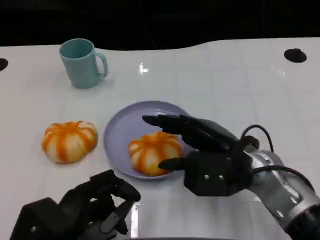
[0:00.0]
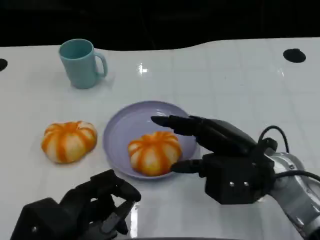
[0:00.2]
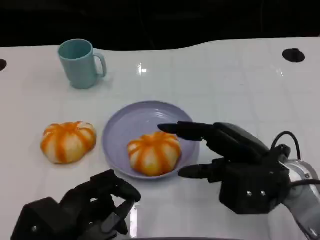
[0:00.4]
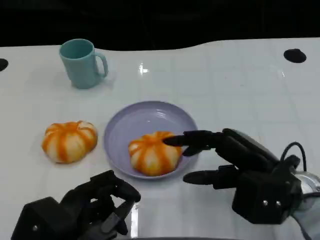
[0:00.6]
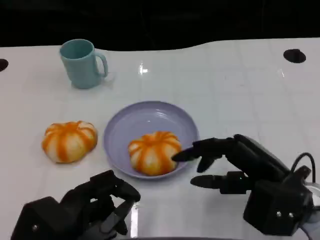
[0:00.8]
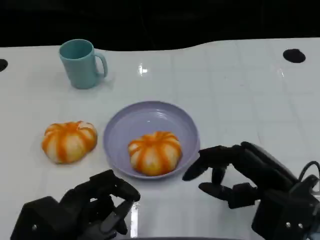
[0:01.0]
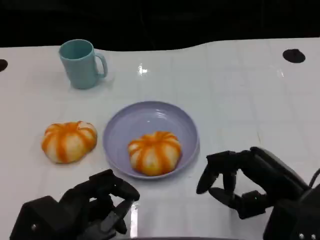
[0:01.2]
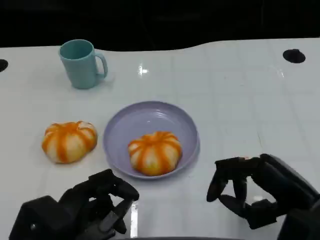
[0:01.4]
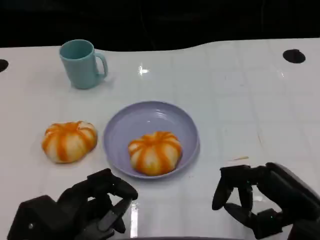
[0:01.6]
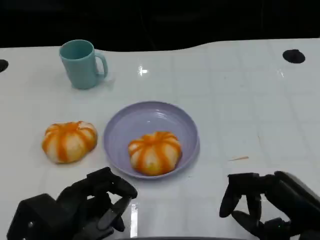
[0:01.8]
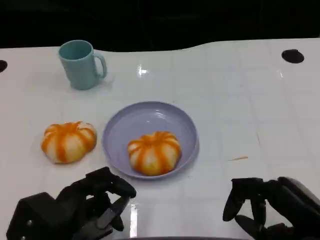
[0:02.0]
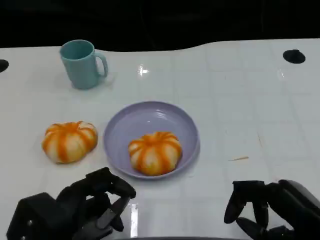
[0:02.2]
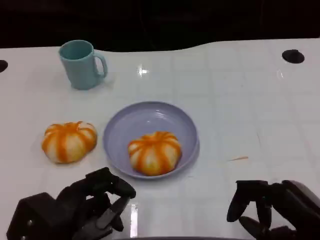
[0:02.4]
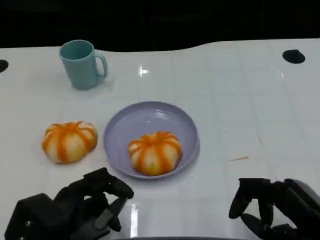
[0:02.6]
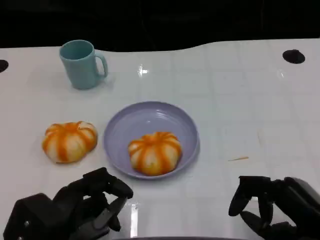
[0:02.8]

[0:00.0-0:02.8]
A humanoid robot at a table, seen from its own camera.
Task of the whole recording: Grasp the bread from the table and place it into the plate.
0:00.0 to 0:01.4: The right hand goes roughly 10 cm to the right and backward.
0:01.4 to 0:02.8: There are only small adjustments of the hands.

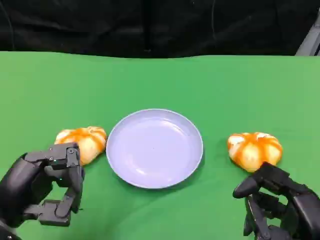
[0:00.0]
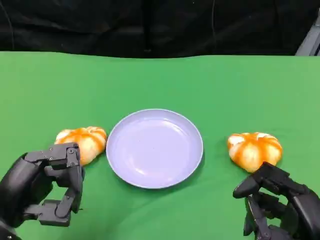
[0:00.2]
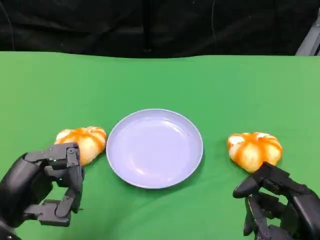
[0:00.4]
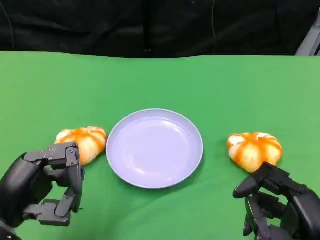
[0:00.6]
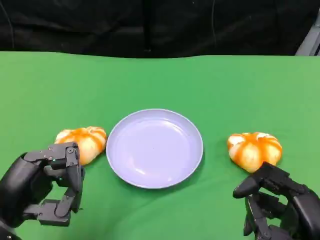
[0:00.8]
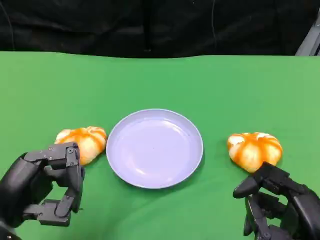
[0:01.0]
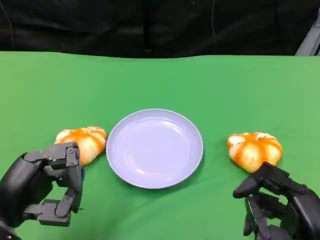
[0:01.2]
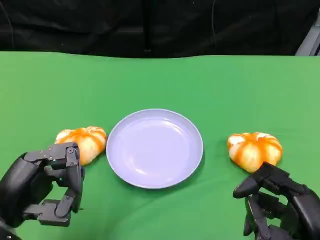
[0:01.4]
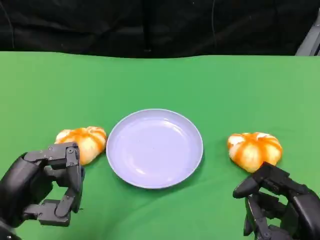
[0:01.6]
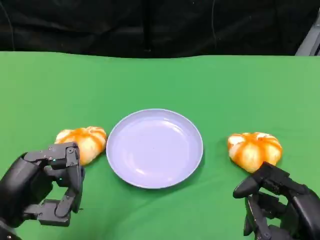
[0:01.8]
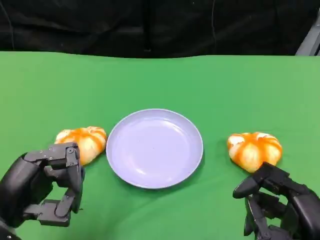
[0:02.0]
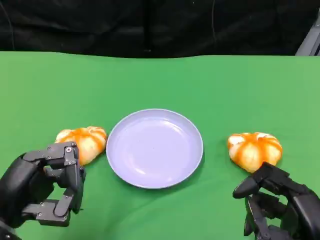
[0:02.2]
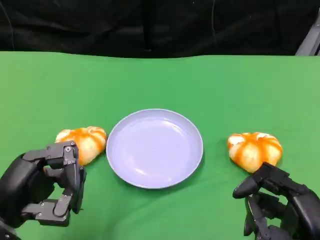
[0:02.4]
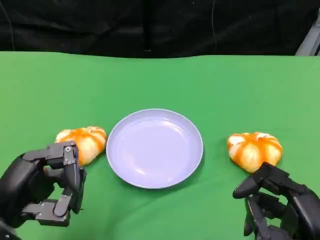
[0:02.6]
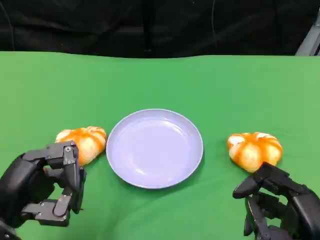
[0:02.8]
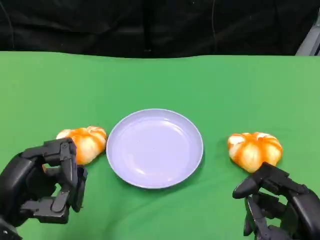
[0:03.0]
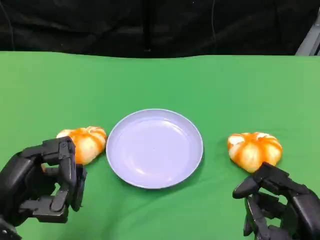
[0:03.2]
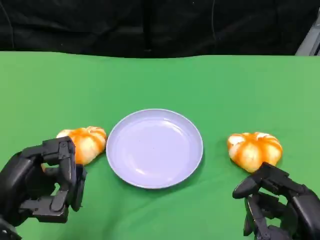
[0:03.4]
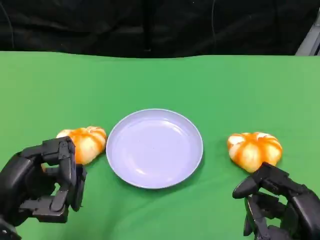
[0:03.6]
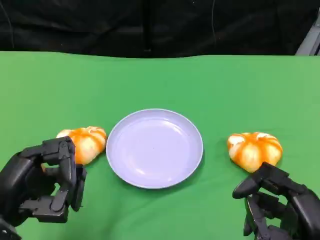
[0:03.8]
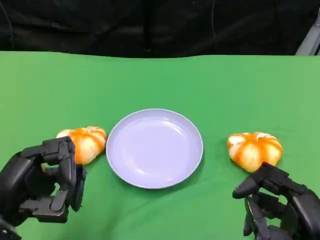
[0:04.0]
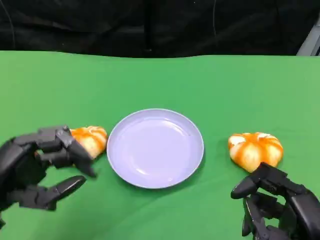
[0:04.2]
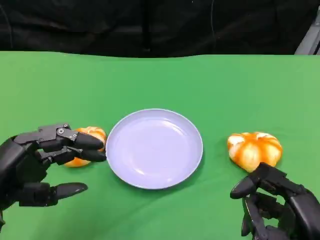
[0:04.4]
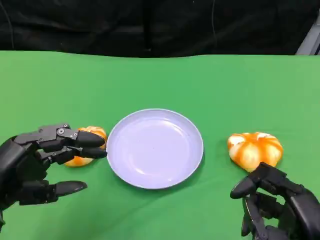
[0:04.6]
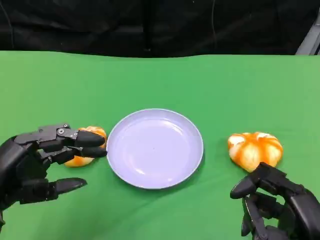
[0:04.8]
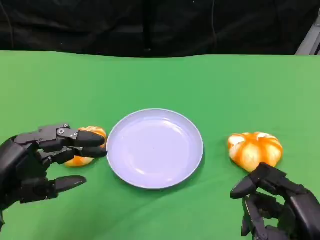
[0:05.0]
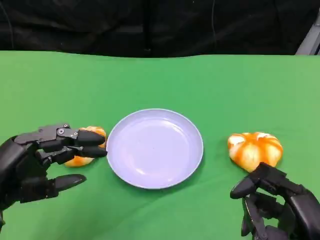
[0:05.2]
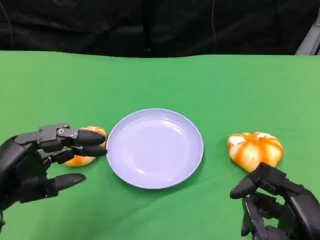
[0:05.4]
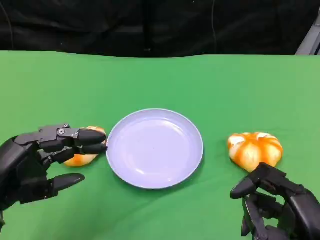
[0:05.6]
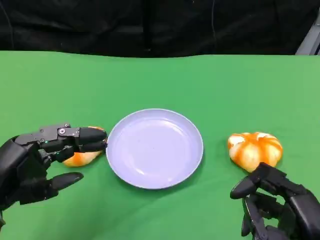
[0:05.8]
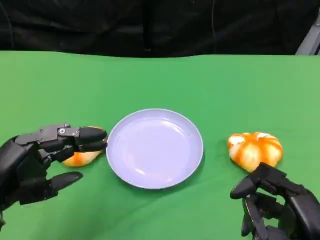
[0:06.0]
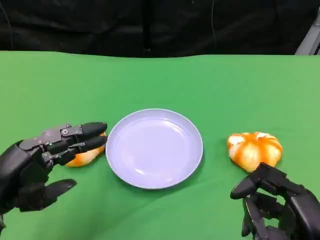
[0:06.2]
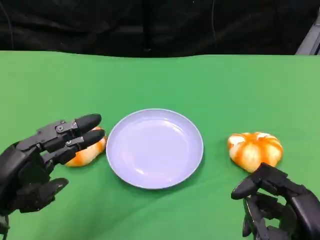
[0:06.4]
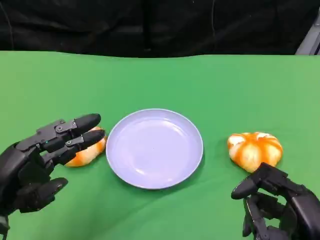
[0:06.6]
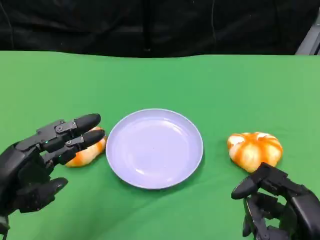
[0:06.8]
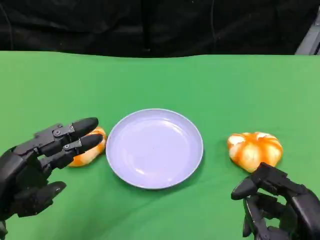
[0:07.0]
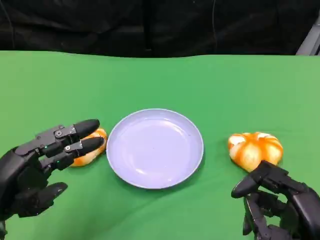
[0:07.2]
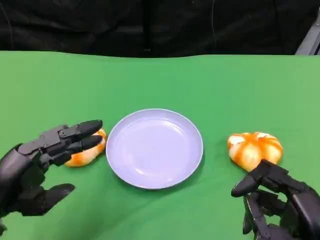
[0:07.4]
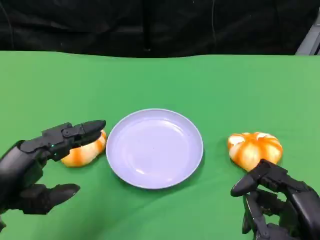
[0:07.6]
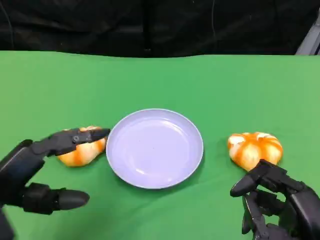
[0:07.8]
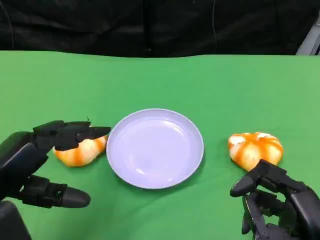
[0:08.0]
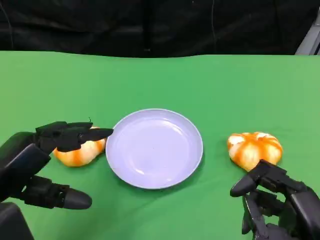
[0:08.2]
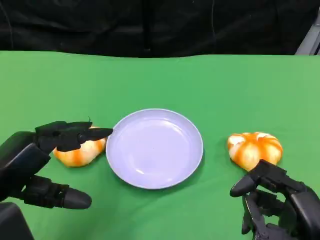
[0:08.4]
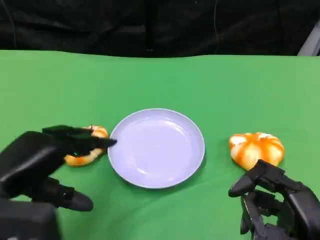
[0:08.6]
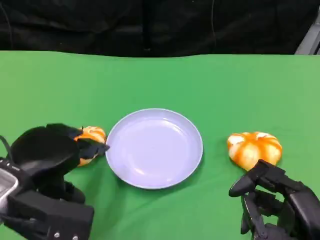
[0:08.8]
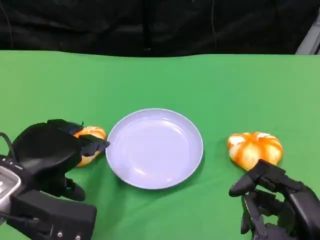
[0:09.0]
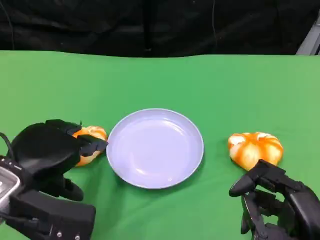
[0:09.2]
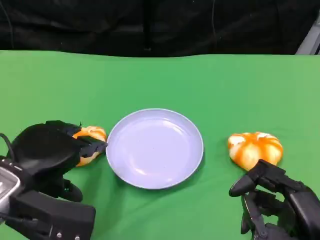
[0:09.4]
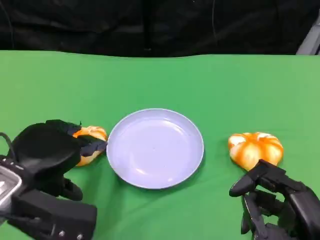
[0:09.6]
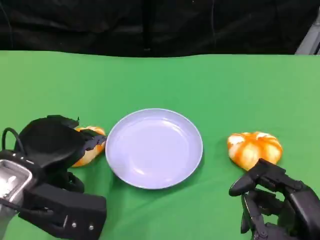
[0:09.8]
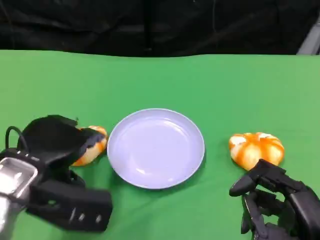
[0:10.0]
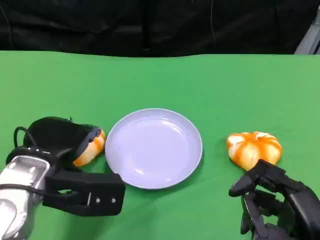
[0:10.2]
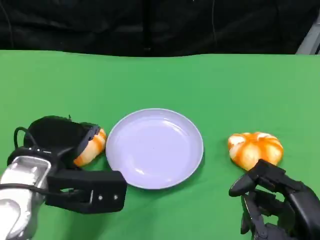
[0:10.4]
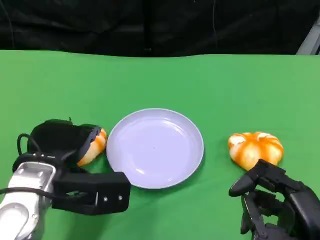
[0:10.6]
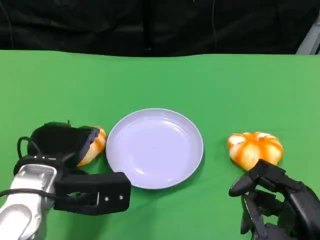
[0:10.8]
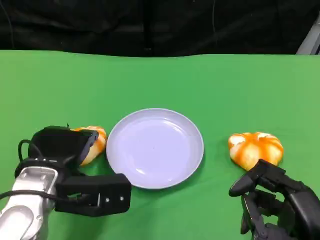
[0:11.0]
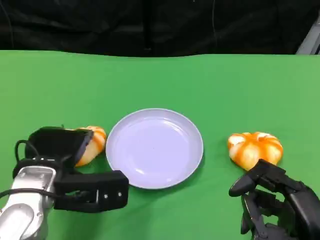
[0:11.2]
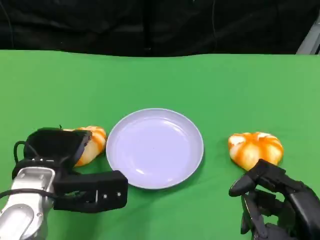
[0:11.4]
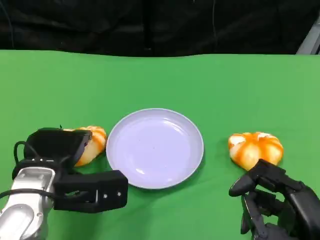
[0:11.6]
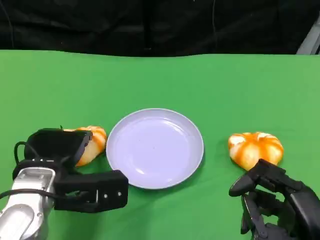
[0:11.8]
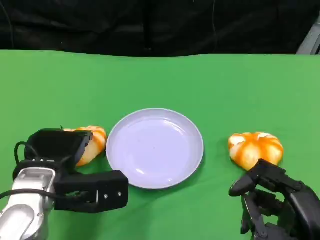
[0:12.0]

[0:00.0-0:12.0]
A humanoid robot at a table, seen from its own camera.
Task of the whole recording: Grasp the bread from the table and place it into the plate.
0:00.0 to 0:01.6: Both hands stay about where they are.
0:01.6 to 0:04.4: The hands make only small movements.
0:04.4 to 0:06.0: The two hands keep their place.
0:06.0 to 0:07.6: The hands move only a little.
0:07.6 to 0:09.0: The left hand changes place by approximately 5 cm.
0:09.0 to 0:10.4: The hands make only small movements.
0:10.4 to 0:12.0: The hands move only a little.

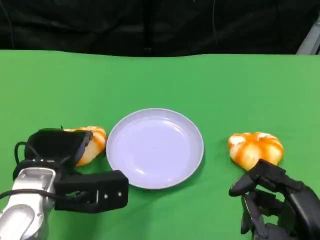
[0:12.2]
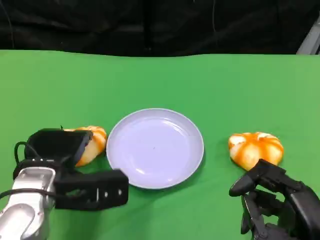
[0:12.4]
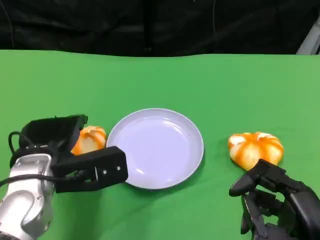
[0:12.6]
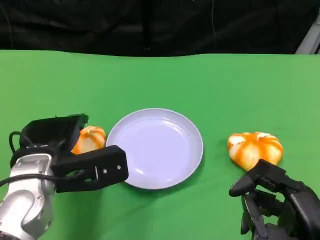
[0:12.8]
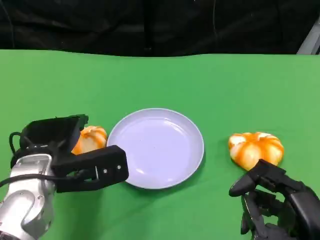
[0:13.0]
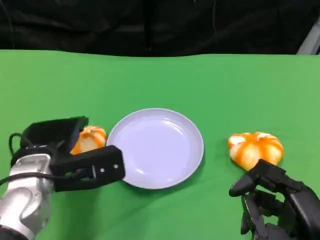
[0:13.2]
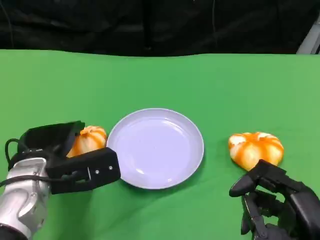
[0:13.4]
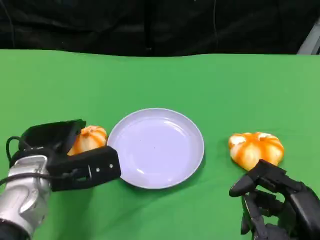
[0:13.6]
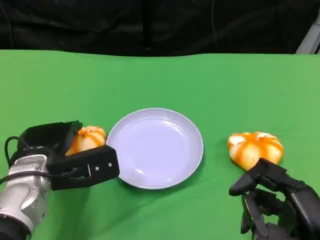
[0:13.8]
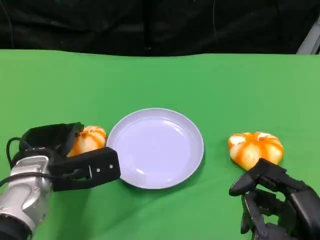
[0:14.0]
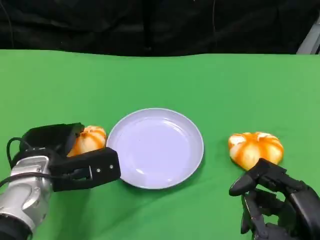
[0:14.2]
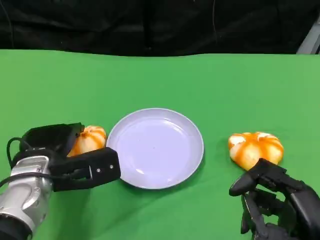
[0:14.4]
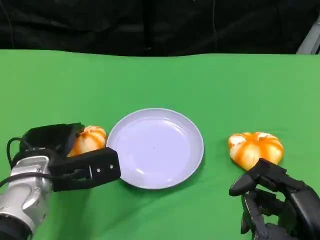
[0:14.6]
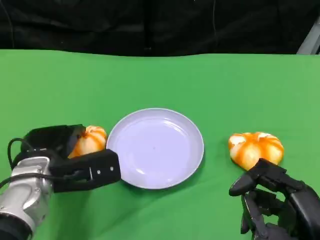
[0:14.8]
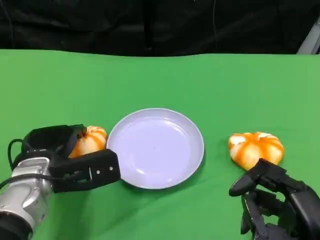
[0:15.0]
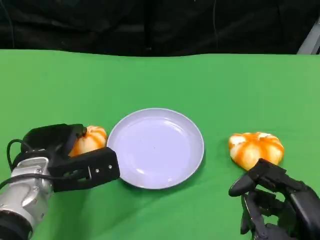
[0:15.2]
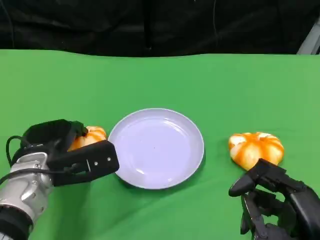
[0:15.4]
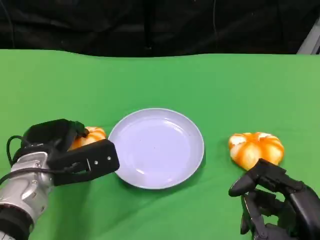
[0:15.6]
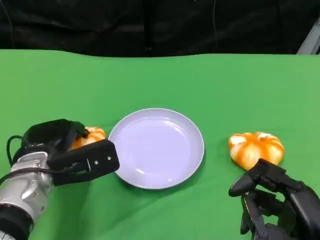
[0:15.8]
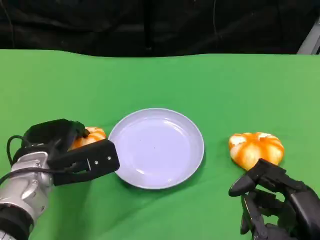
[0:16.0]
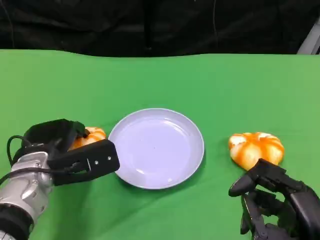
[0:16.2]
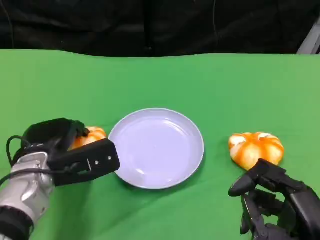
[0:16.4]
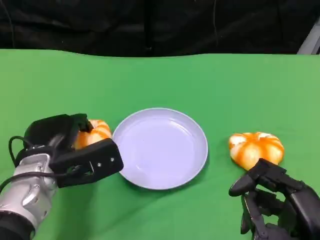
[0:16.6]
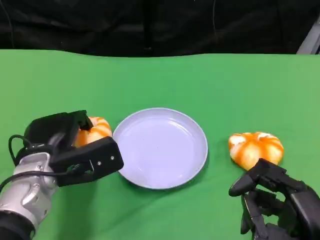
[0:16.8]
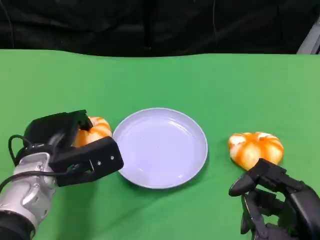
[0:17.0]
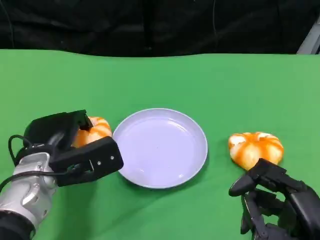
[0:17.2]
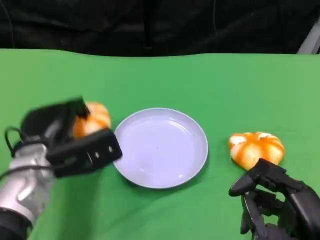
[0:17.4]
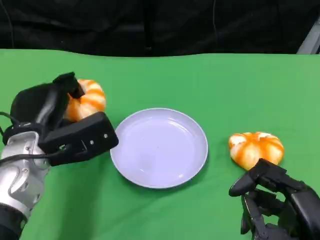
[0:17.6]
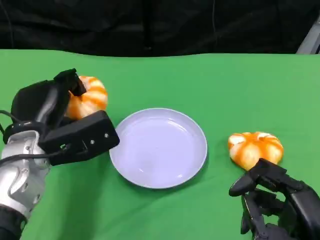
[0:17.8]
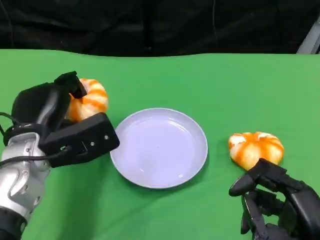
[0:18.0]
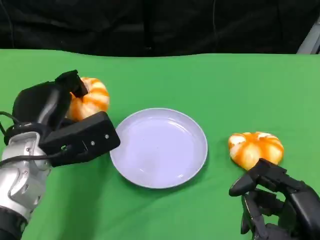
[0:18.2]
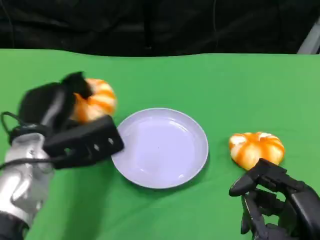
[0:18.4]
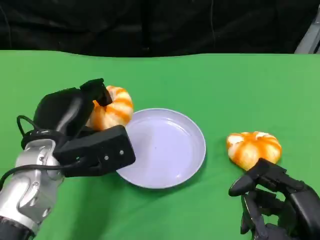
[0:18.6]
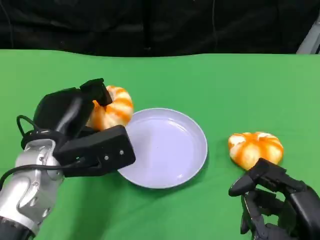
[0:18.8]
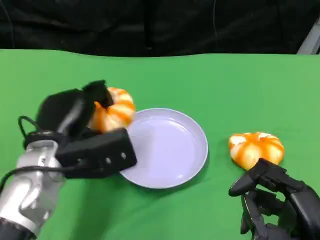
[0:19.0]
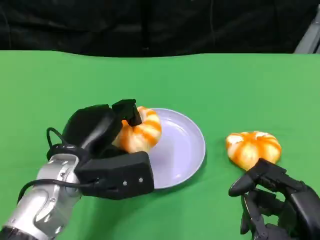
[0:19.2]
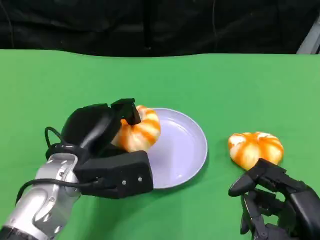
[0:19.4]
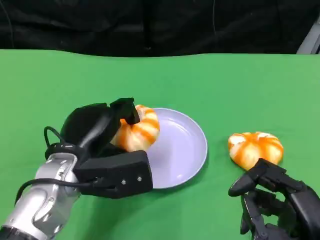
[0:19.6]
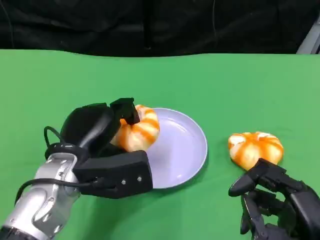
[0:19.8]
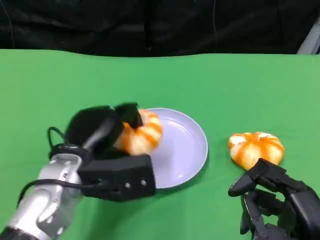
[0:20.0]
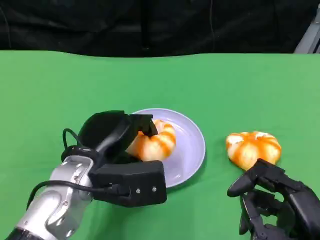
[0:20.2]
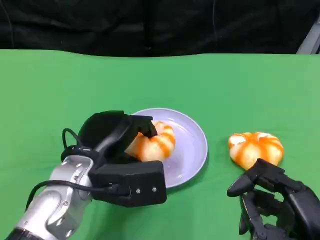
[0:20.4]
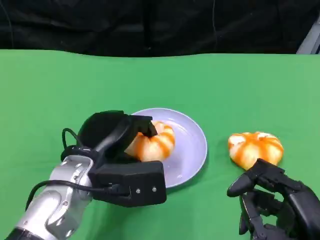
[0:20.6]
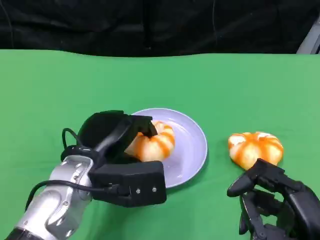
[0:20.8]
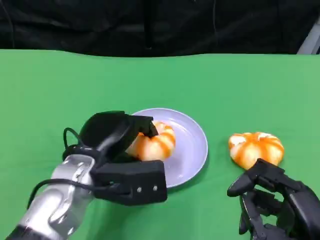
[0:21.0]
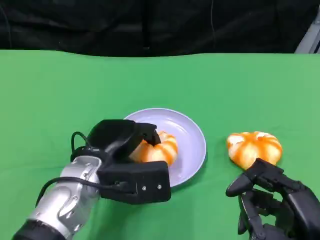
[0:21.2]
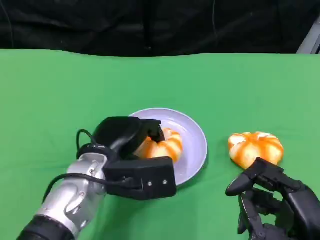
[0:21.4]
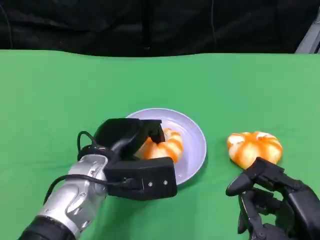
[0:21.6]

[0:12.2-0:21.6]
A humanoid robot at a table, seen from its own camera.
Task of the whole recording: Grasp the bread from the table and place it into the plate.
0:12.2 to 0:17.0: There are only small adjustments of the hands.
0:17.0 to 0:18.4: The hands stay close to where they were, moving slightly.
0:20.0 to 0:21.6: The hands move only a little.
